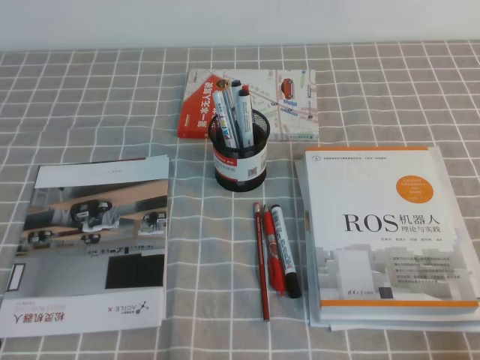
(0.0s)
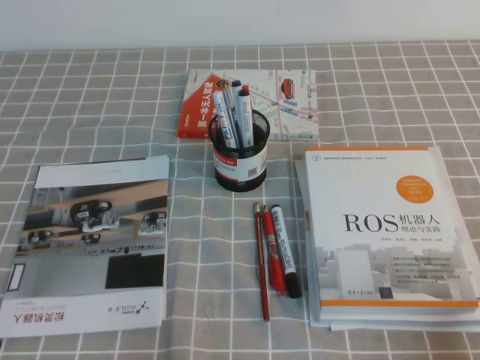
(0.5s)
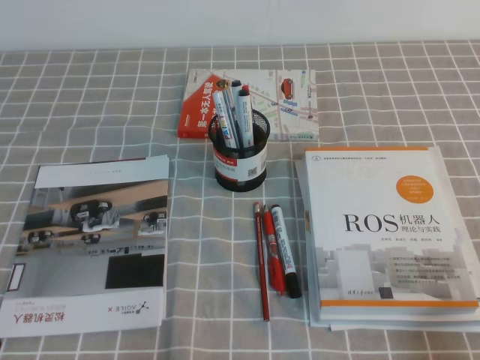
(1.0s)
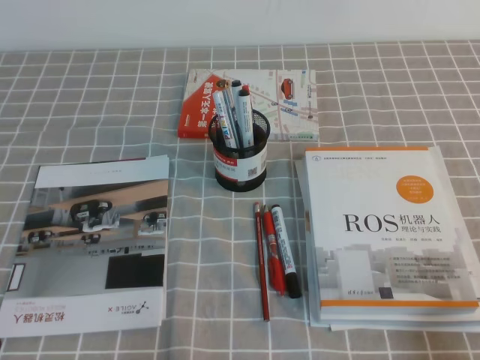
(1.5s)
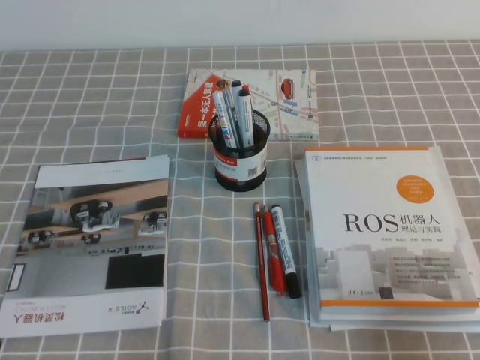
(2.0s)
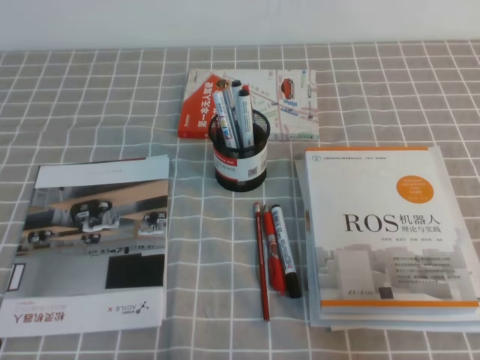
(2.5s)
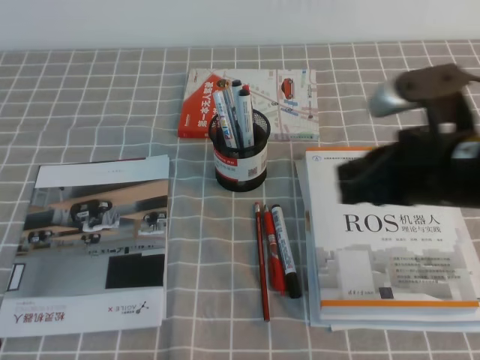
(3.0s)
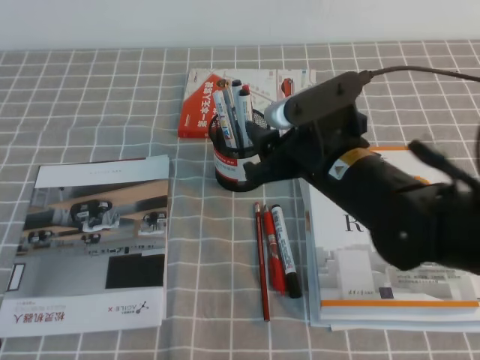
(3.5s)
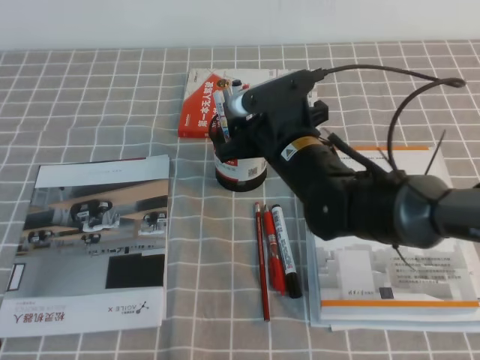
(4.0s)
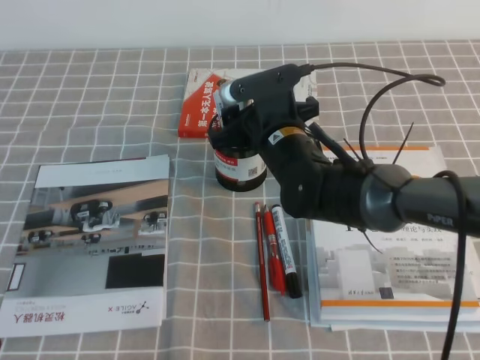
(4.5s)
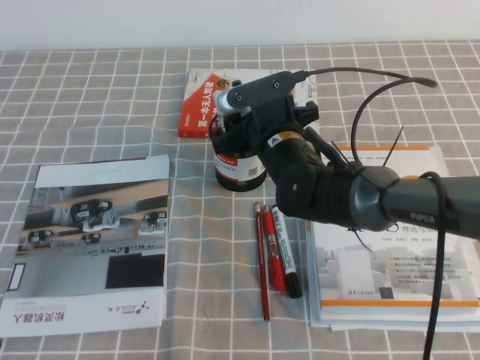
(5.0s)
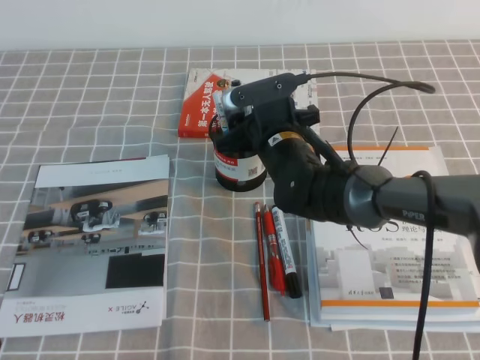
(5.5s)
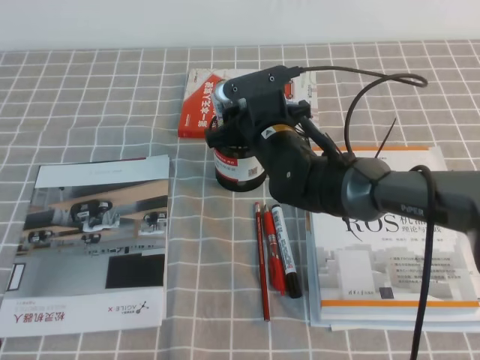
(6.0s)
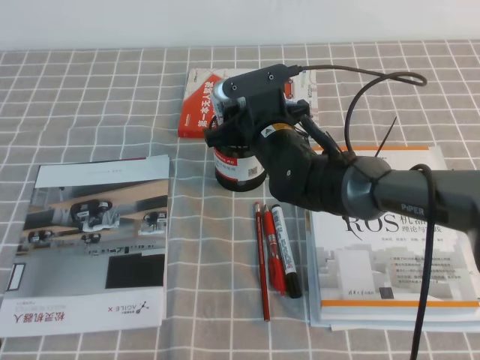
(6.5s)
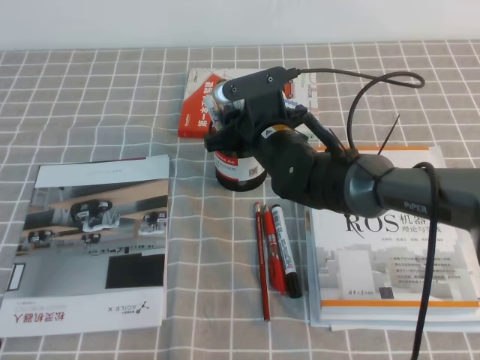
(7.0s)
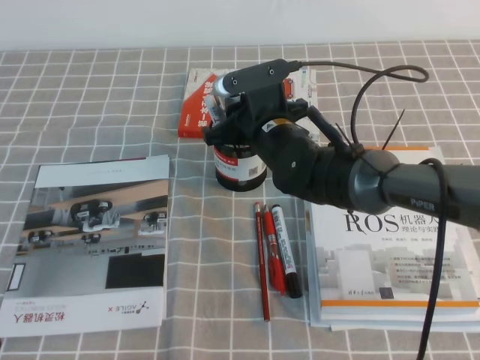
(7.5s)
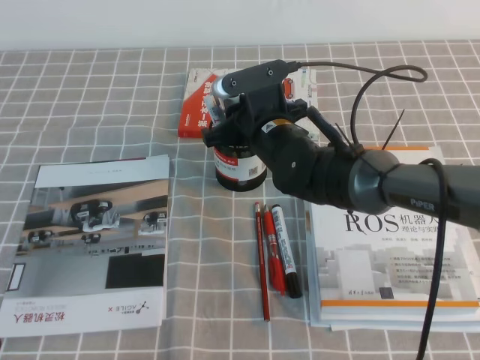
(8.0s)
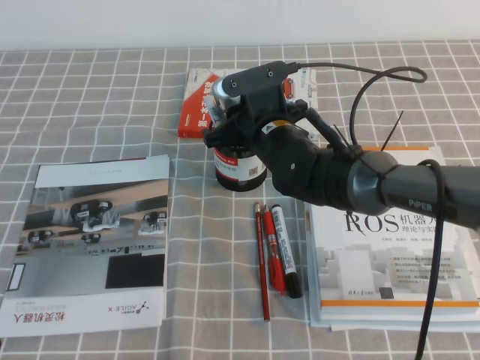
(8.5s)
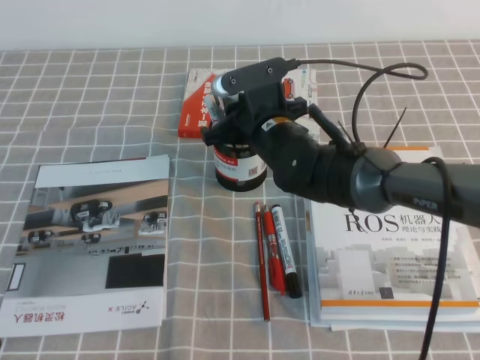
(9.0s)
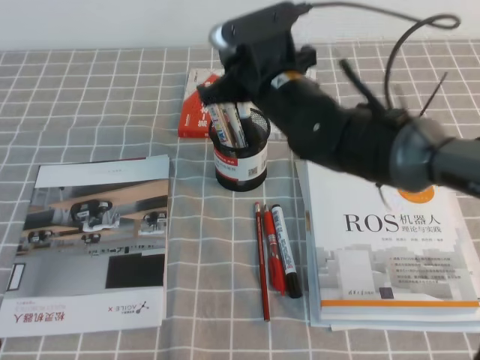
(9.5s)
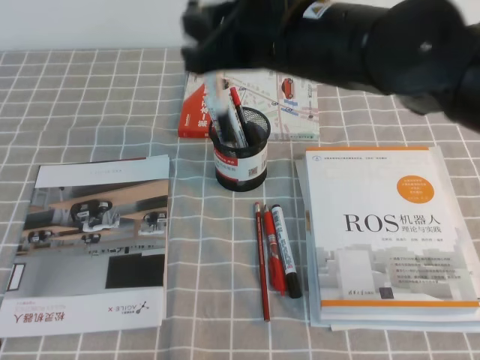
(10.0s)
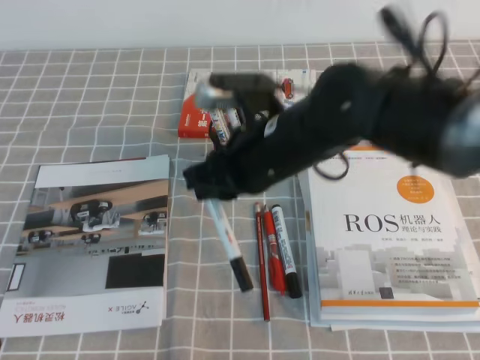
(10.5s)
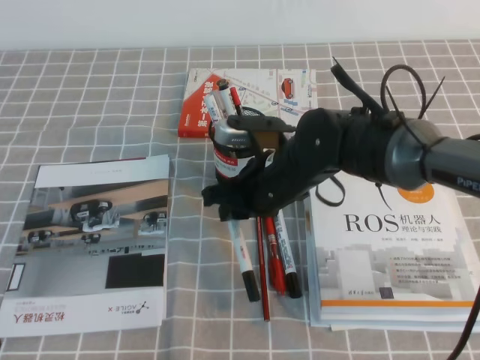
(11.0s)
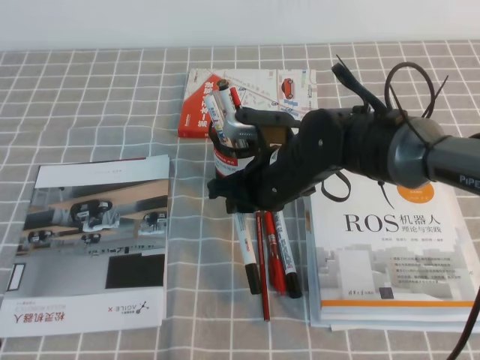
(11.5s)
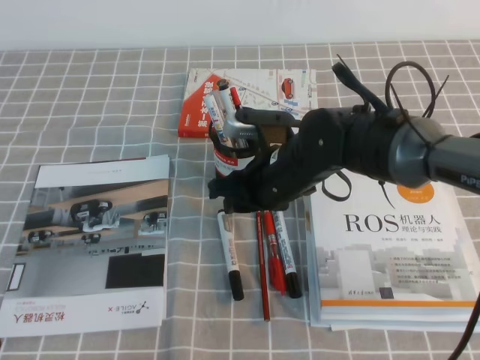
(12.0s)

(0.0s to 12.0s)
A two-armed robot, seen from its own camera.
0.0s - 2.0s: The right gripper moves upward, roughly 5 cm.
2.0s - 4.0s: The right gripper is displaced forward and to the left by about 35 cm, and opens.
4.0s - 6.0s: The right gripper shifts some 5 cm forward.
6.0s - 8.0s: The right gripper closes.
8.0s - 10.0s: The right gripper moves upward and backward, roughly 20 cm.
10.0s - 12.0s: The right gripper moves downward, about 15 cm.

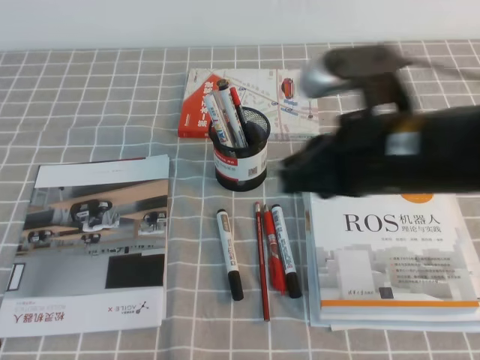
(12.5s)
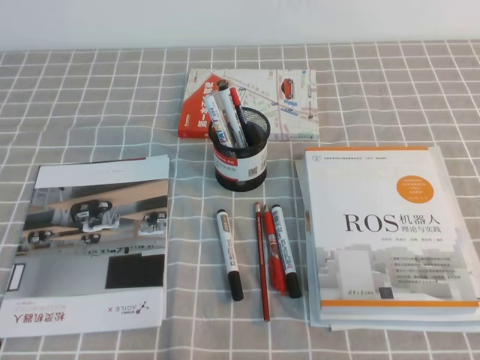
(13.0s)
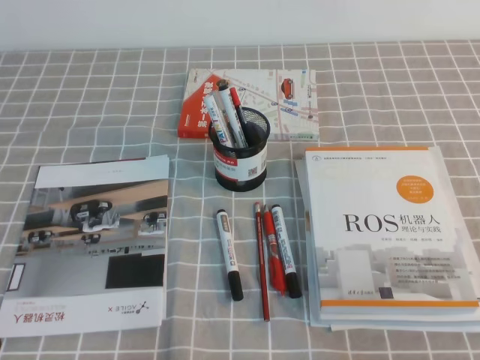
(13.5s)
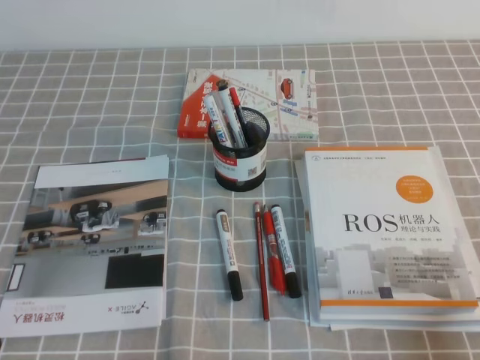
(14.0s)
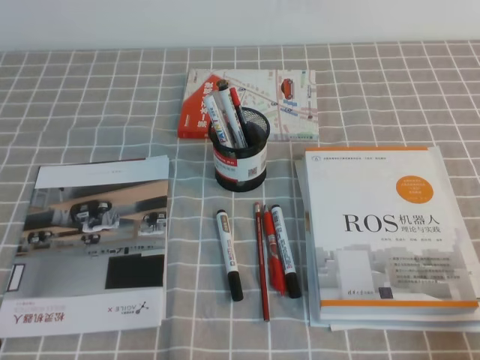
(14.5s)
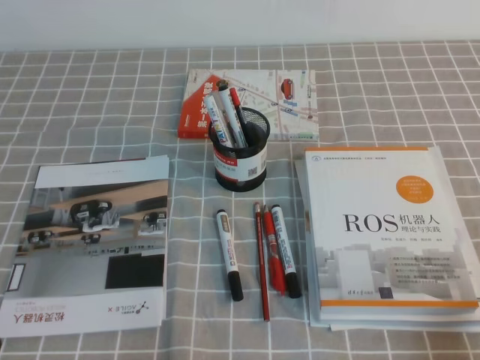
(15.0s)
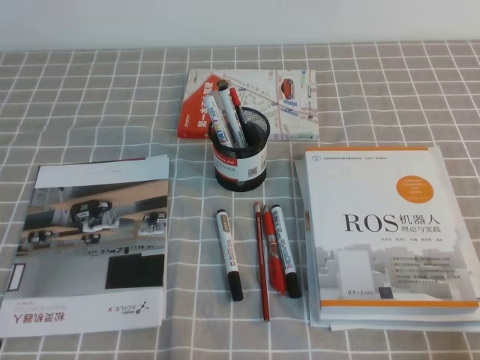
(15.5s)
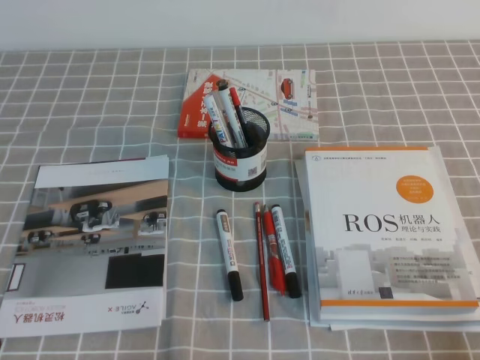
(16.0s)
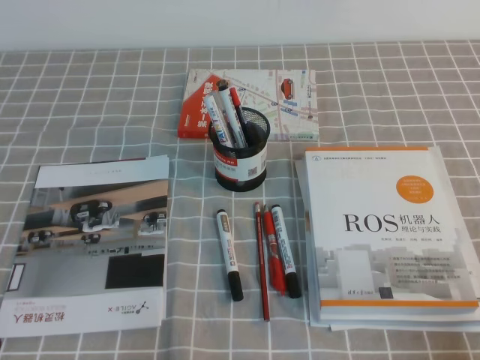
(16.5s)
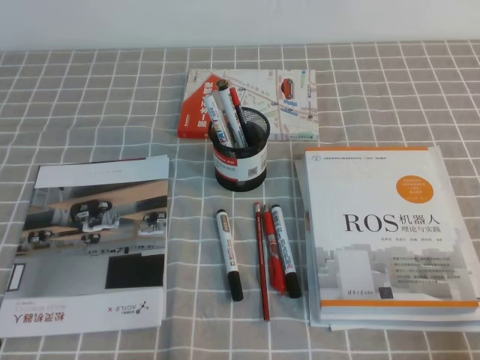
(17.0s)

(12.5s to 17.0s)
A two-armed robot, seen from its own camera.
Step, 12.5s - 17.0s: Pick up the pen from the pen holder.
12.5s - 14.5s: The right gripper is displaced to the right, backward and downward by some 30 cm.

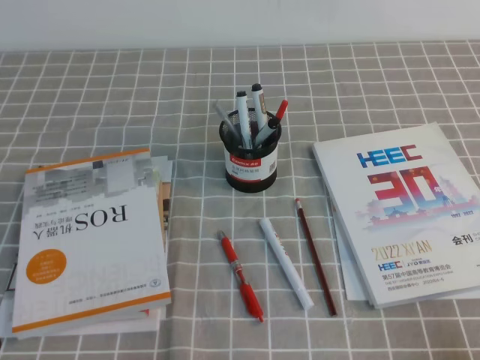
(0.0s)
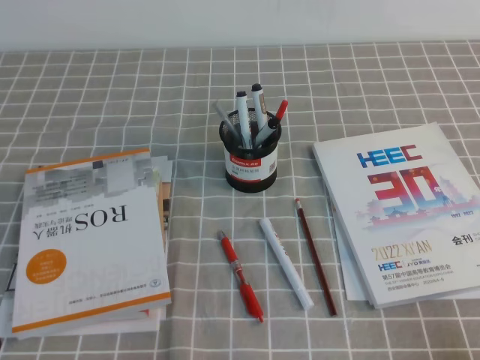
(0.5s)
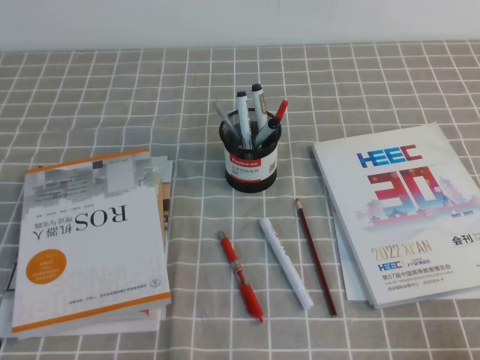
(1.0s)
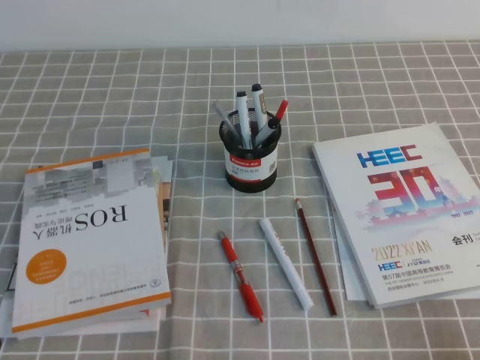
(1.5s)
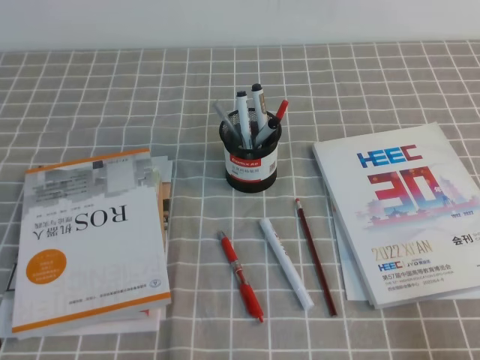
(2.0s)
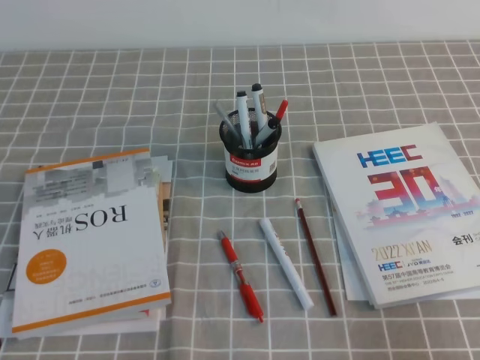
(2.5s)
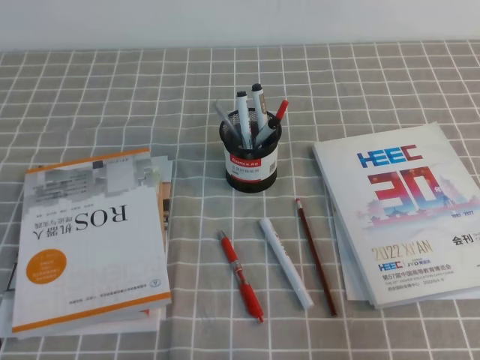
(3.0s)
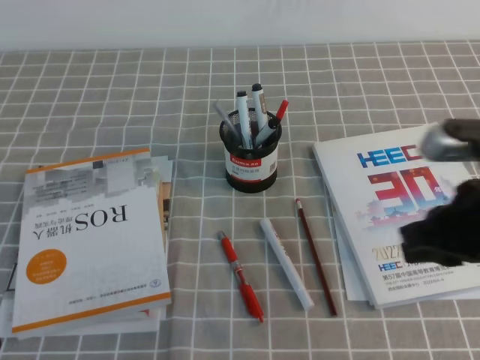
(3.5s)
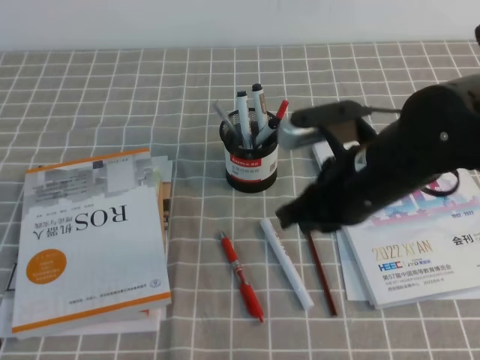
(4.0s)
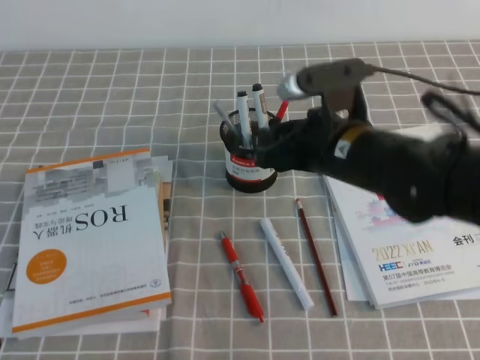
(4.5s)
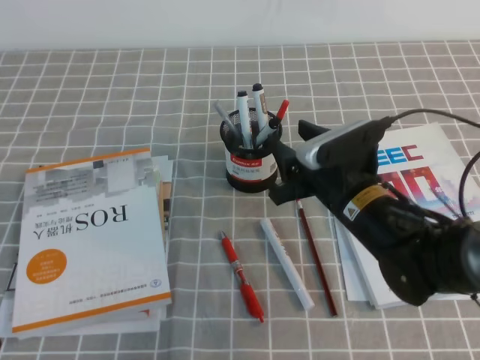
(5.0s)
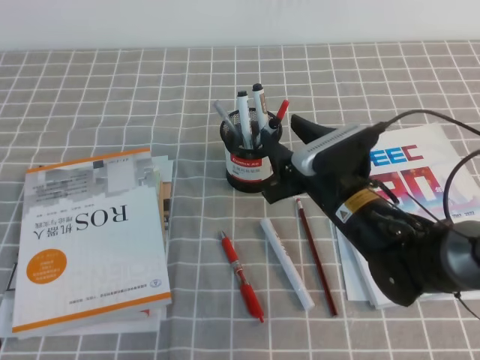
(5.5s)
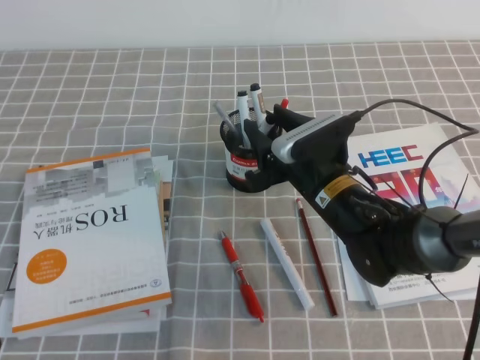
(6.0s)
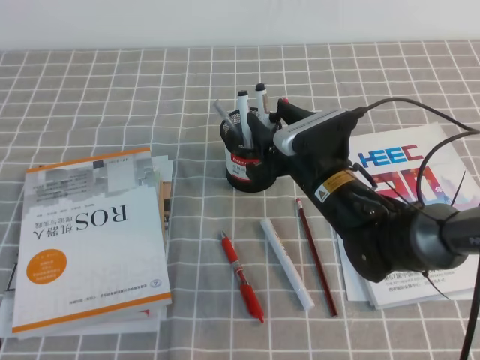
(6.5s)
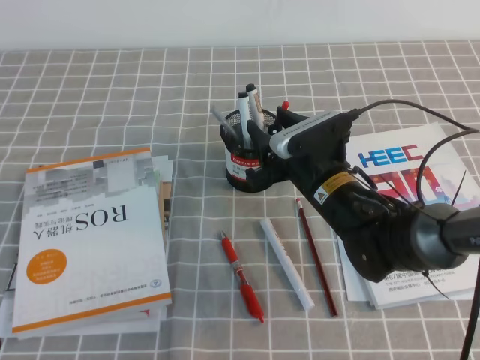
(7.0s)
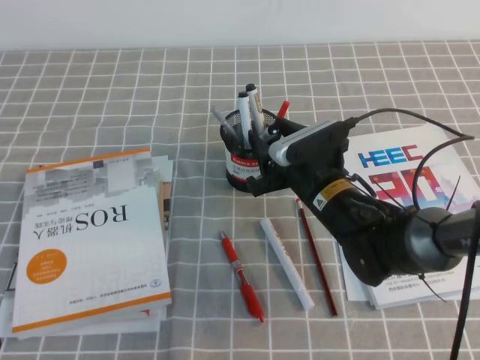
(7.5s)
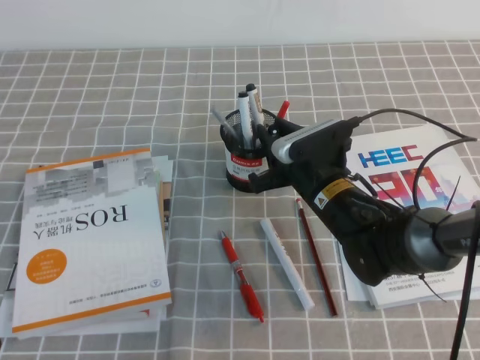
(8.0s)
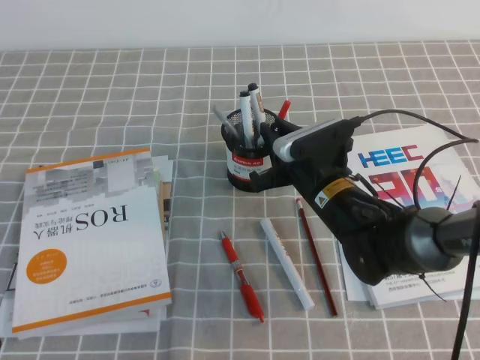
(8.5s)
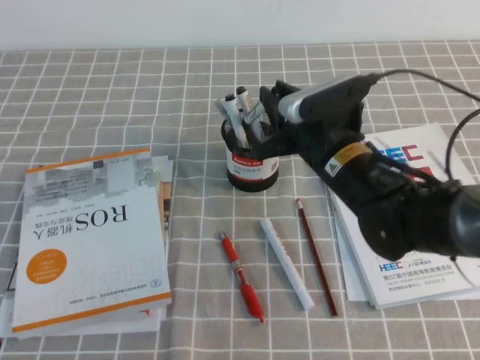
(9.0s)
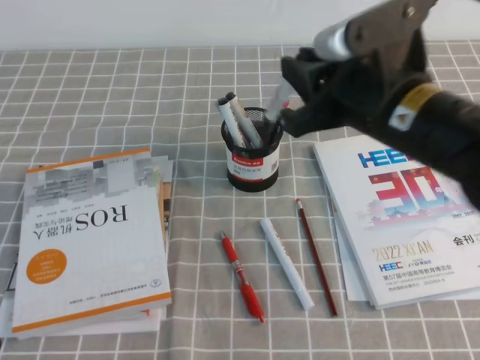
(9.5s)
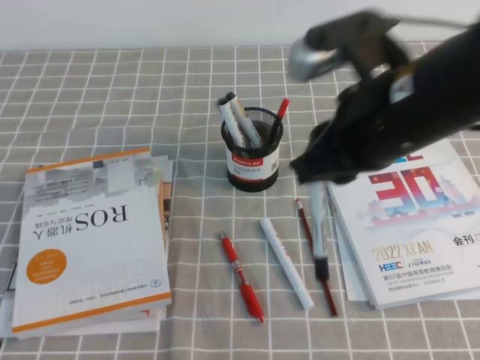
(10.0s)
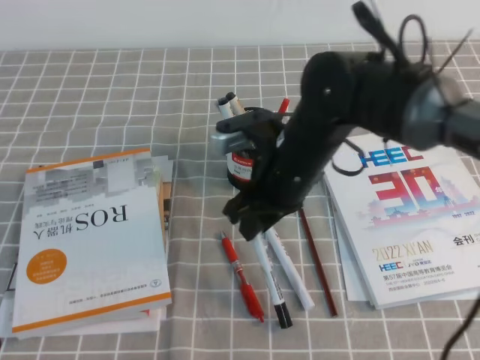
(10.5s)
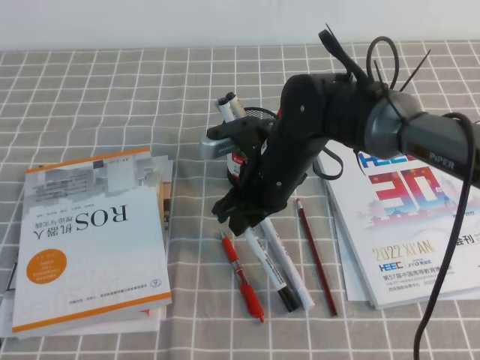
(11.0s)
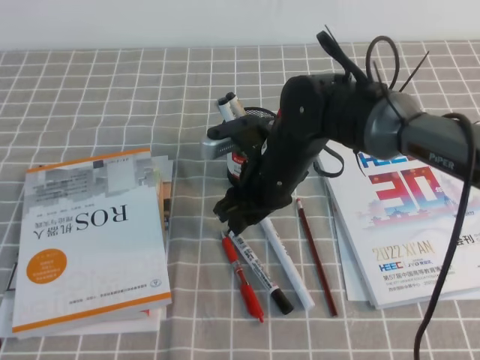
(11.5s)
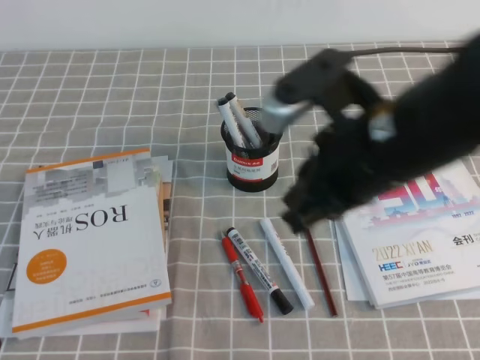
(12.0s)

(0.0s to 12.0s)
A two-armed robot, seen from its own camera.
2.0s - 4.0s: The right gripper moves forward, to the left and upward, about 30 cm.
4.0s - 6.0s: The right gripper heads downward and forward, covering approximately 10 cm, and opens its fingers.
6.0s - 8.0s: The right gripper closes its fingers.
8.0s - 10.0s: The right gripper moves upward and backward, roughly 20 cm.
10.0s - 12.0s: The right gripper moves some 15 cm downward and comes back.
